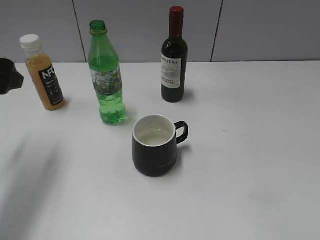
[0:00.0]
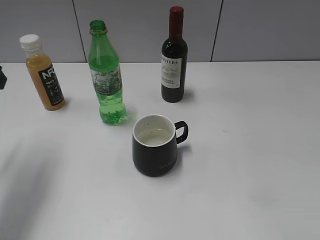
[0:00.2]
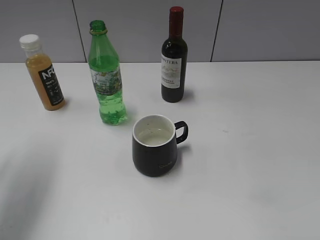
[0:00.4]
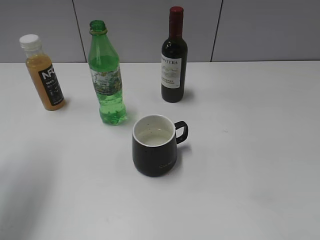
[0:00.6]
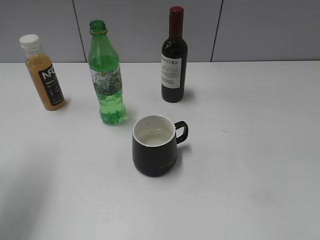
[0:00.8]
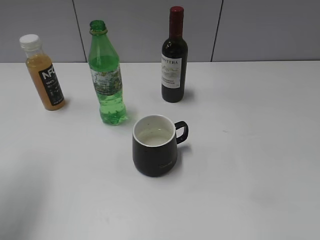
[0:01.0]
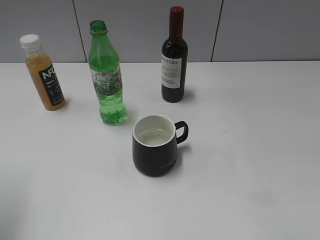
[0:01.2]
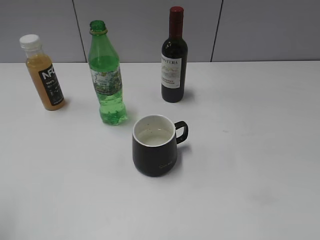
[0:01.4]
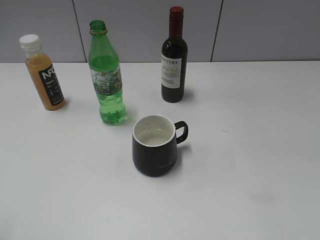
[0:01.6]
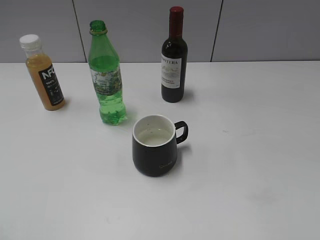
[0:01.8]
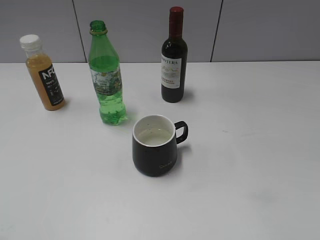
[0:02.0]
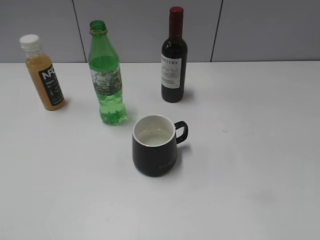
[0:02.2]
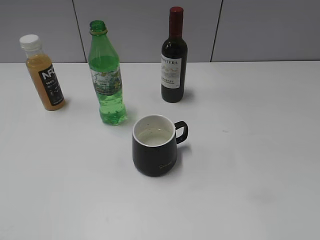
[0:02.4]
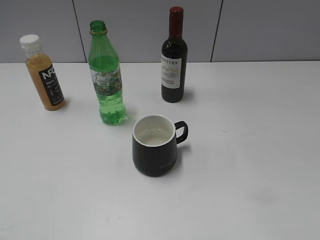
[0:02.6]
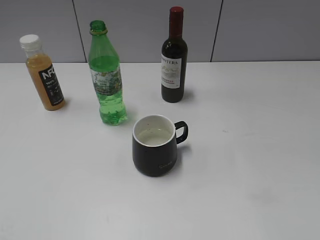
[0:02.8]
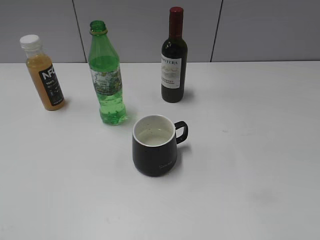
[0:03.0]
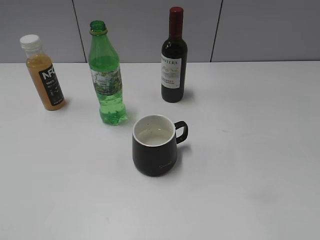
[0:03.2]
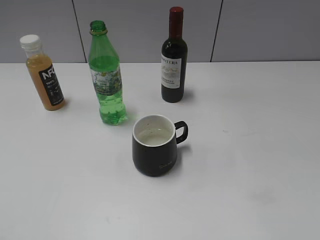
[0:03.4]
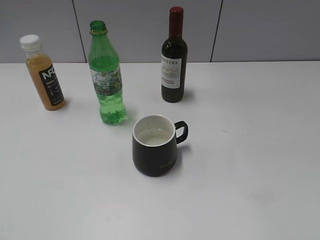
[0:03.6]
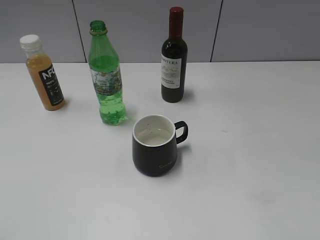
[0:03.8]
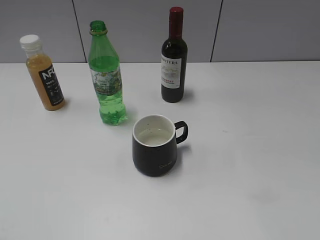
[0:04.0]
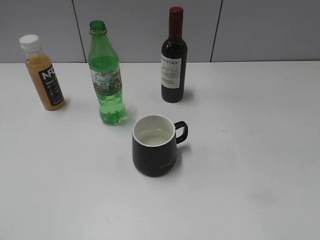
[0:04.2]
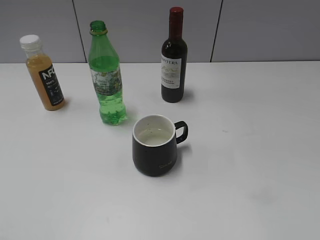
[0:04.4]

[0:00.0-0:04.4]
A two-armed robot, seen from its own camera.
0:00.0 to 0:01.4: The left gripper shifts some 15 cm backward.
0:03.0 to 0:04.4: Both grippers stay put.
